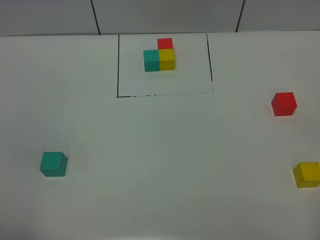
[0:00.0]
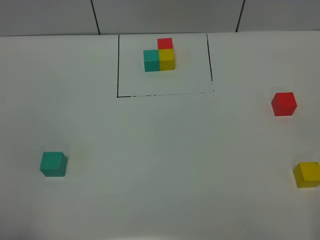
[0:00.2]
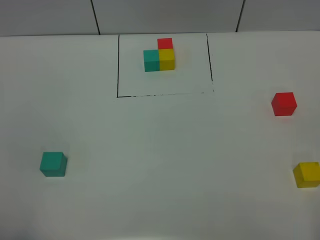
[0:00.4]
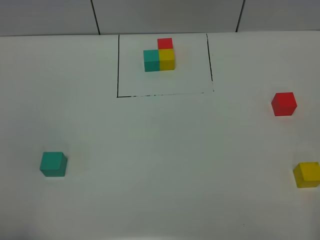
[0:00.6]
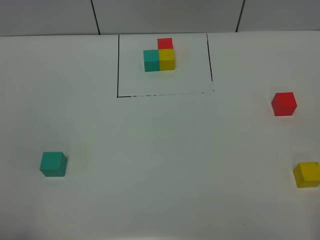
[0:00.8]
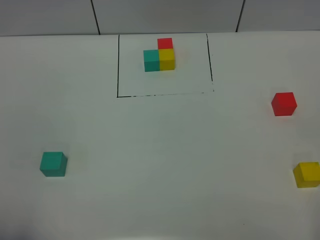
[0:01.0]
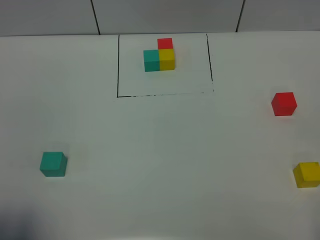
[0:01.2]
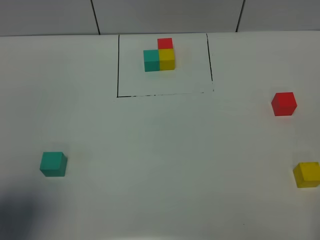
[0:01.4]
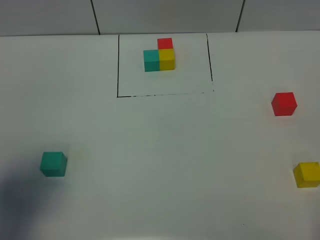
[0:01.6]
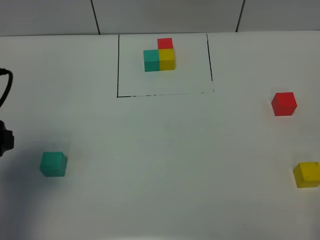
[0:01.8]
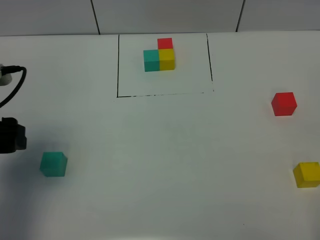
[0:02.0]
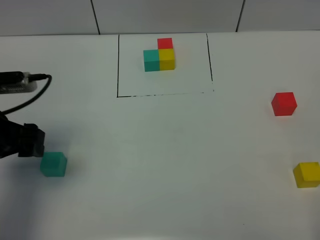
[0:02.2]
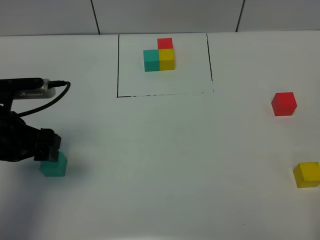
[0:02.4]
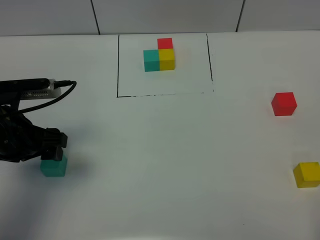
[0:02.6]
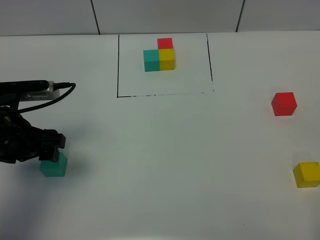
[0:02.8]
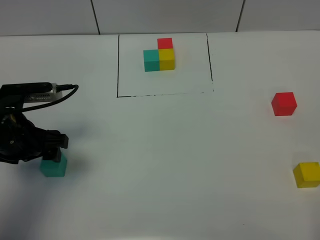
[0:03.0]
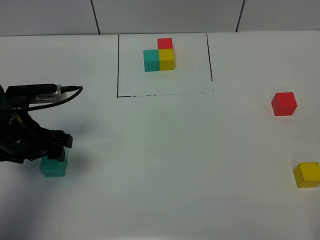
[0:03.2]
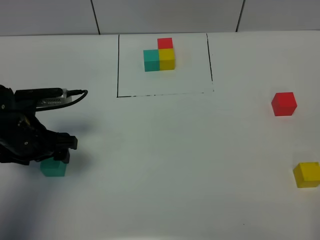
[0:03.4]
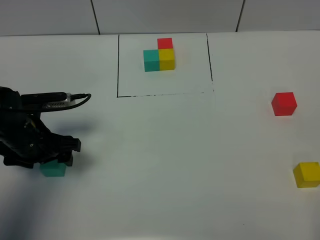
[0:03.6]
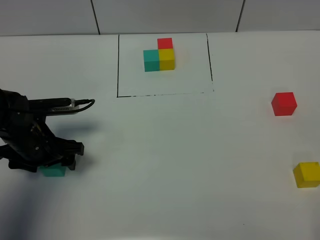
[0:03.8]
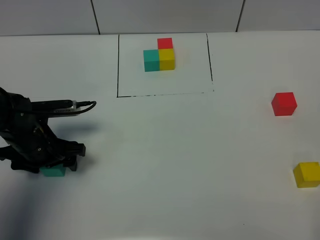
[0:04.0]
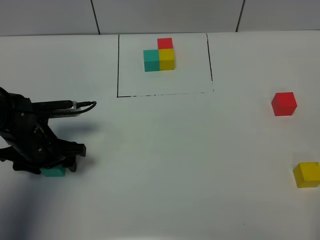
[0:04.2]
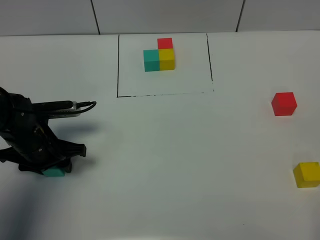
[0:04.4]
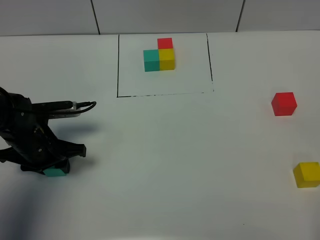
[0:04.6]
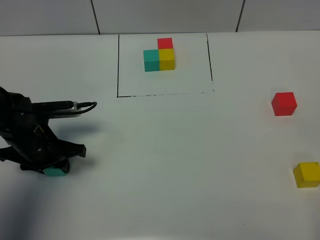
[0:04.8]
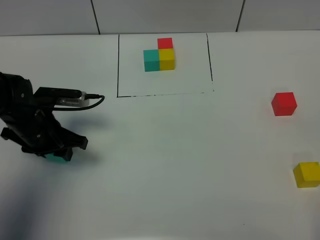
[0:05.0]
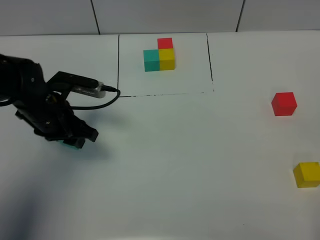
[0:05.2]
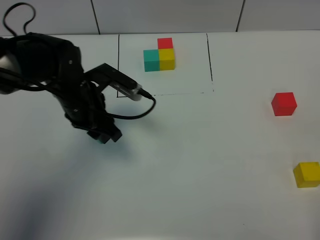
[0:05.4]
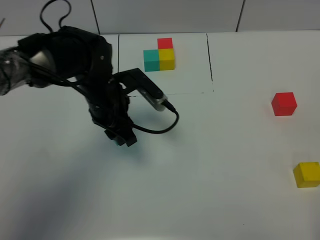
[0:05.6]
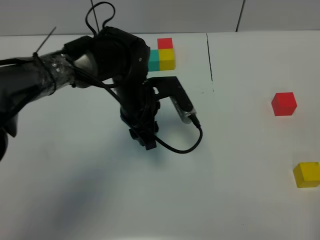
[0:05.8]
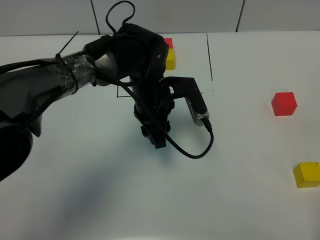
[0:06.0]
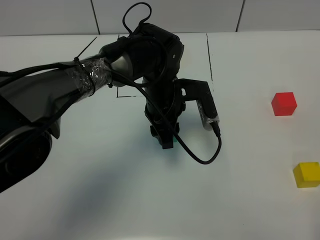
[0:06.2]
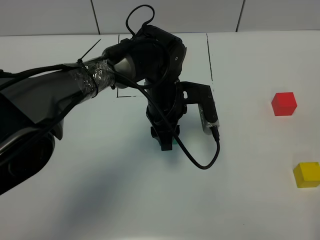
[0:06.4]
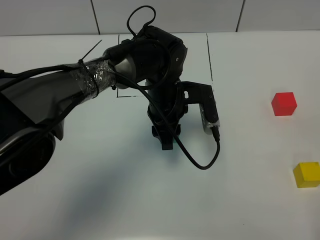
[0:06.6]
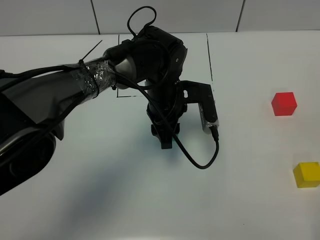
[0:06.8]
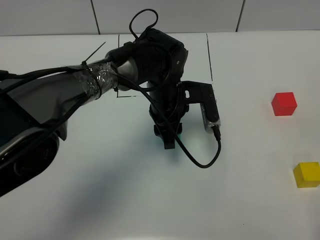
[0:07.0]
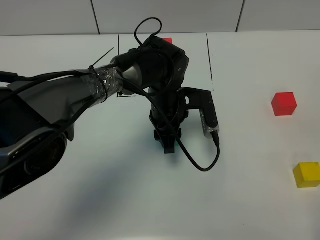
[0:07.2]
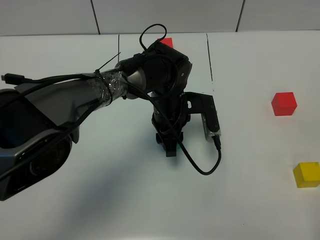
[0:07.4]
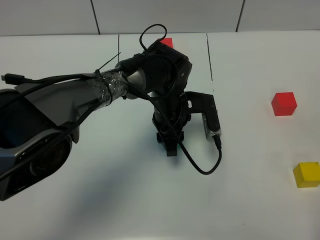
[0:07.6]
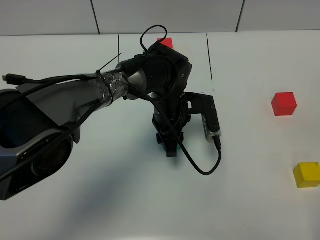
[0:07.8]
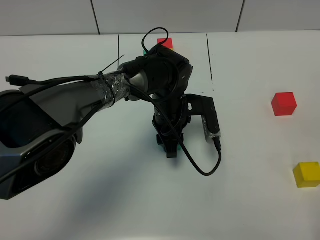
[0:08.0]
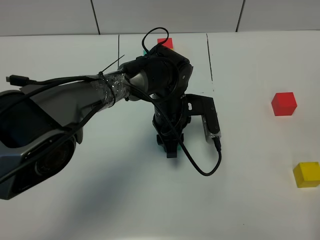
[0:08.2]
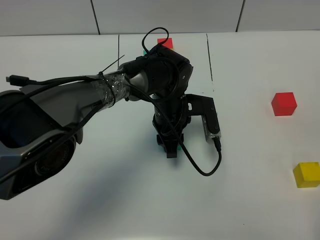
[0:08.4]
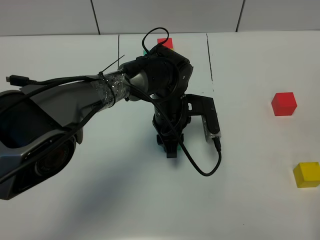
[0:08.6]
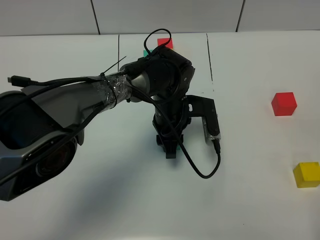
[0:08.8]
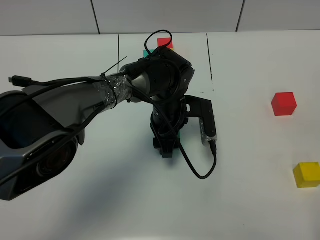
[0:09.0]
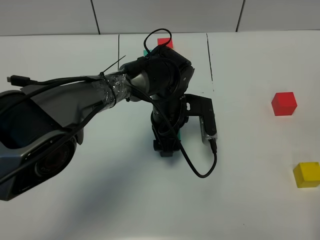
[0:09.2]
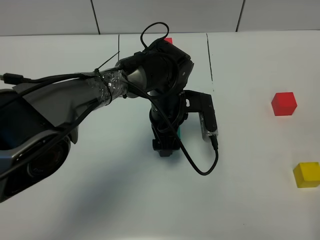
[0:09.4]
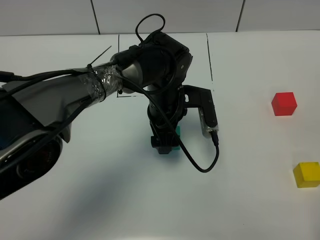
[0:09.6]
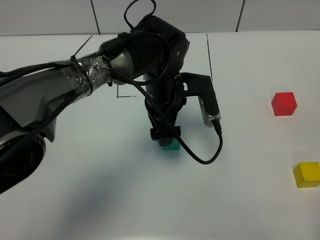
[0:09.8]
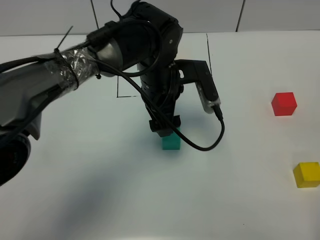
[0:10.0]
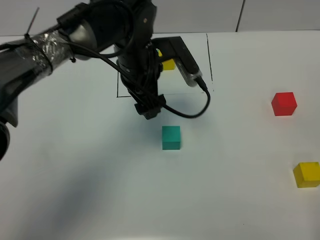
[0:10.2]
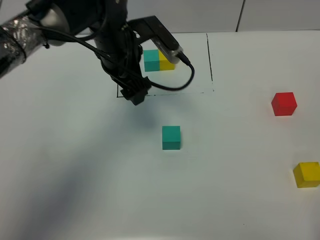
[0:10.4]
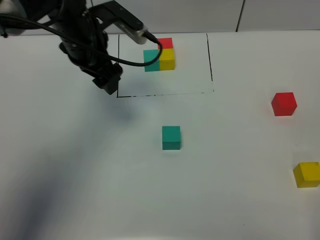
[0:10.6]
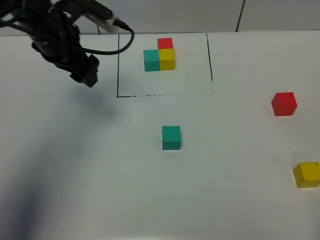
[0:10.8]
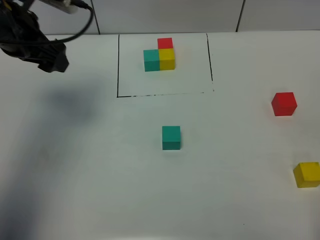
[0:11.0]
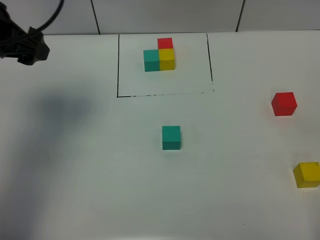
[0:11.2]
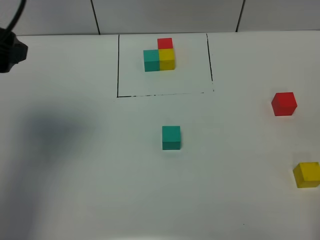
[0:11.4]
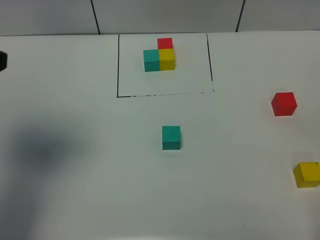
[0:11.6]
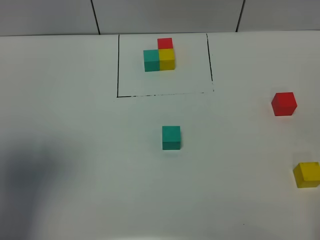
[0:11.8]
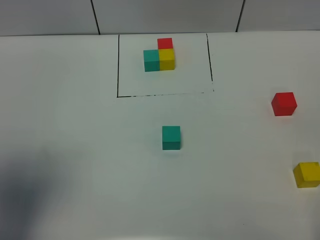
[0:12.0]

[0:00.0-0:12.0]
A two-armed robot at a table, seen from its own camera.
Task of the whole recording: According to the building block template in front, assemble the scattered blocks together.
Step, 0:00.0 to 0:09.4: Put the green build block in the center of the table.
0:00.0 to 0:01.6: The left gripper heads forward, covering some 15 cm.
0:01.6 to 0:03.0: The left gripper goes about 15 cm forward, downward and to the right.
0:03.0 to 0:04.4: The left gripper is displaced downward by roughly 5 cm, and closes its fingers.
0:04.4 to 0:06.0: The left gripper shifts some 20 cm to the right.
0:06.0 to 0:07.6: The left gripper shifts by about 5 cm.
0:07.6 to 0:09.0: The left gripper opens up.
0:09.0 to 0:10.4: The left gripper shifts approximately 15 cm upward and to the left, and opens up.
0:10.4 to 0:12.0: The left gripper moves backward, to the left and upward, some 35 cm.

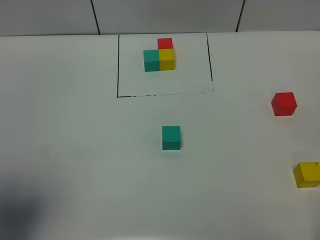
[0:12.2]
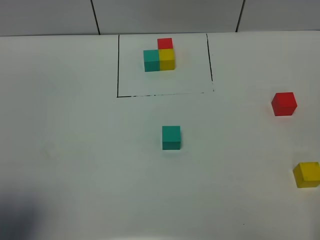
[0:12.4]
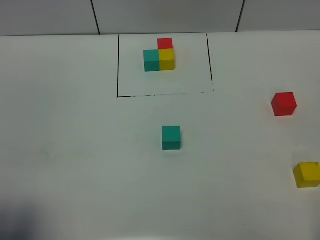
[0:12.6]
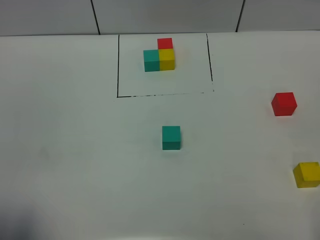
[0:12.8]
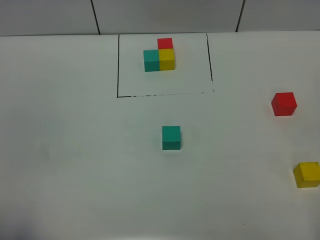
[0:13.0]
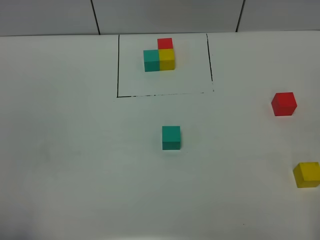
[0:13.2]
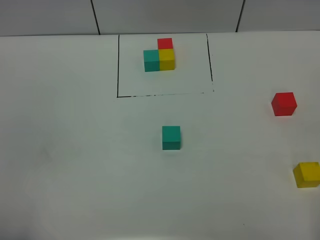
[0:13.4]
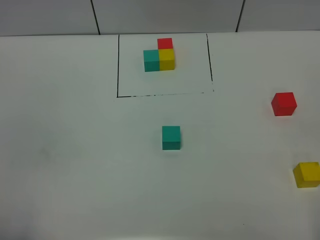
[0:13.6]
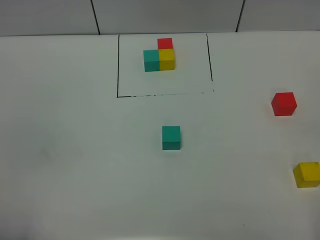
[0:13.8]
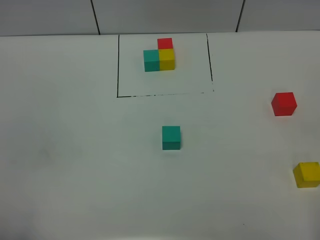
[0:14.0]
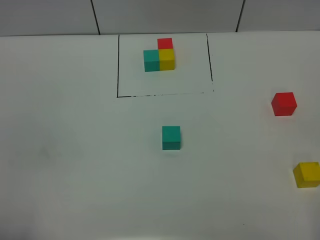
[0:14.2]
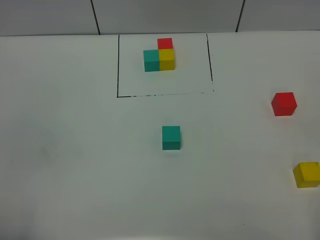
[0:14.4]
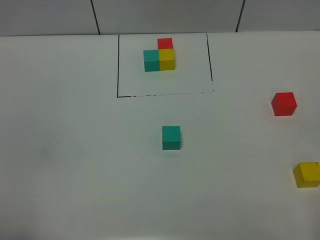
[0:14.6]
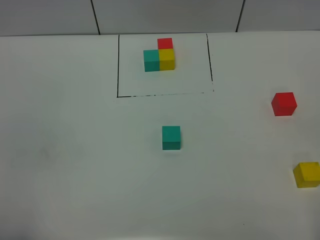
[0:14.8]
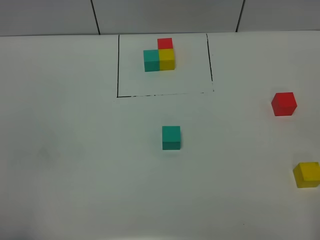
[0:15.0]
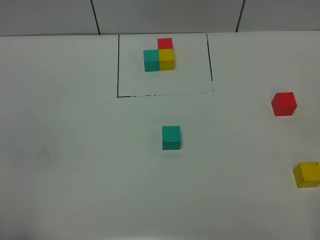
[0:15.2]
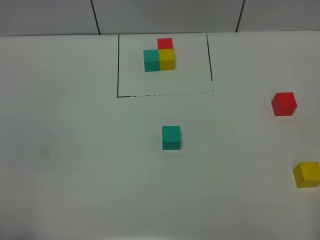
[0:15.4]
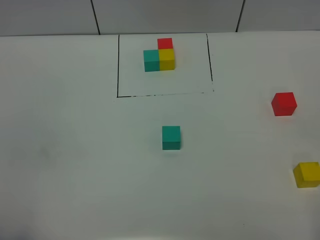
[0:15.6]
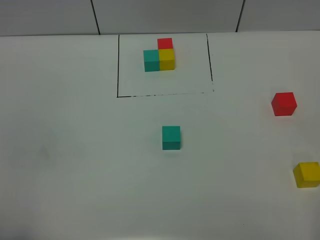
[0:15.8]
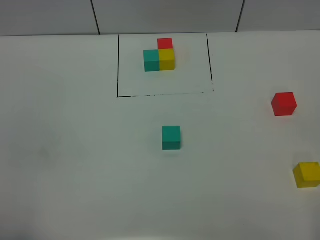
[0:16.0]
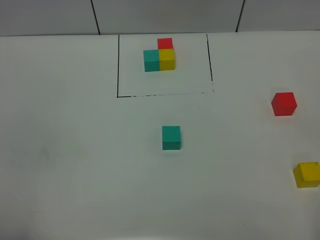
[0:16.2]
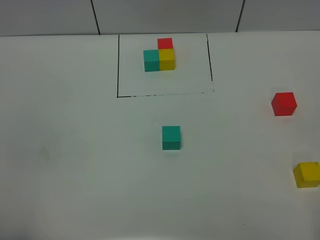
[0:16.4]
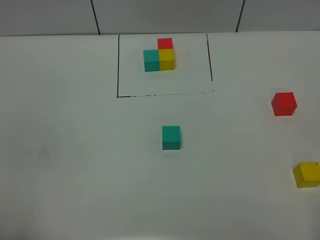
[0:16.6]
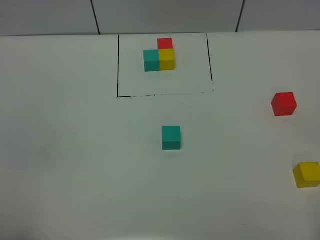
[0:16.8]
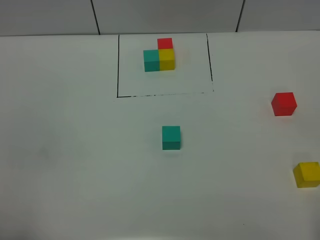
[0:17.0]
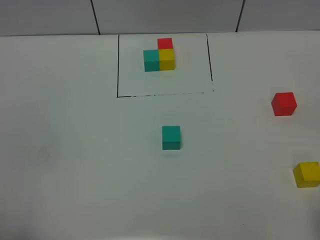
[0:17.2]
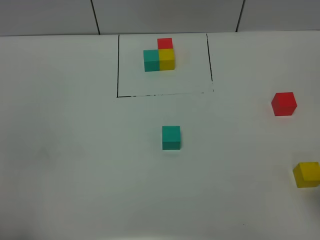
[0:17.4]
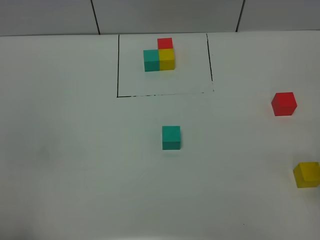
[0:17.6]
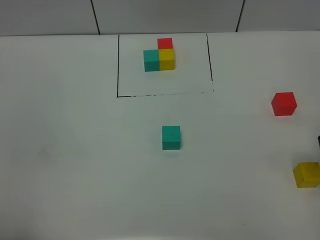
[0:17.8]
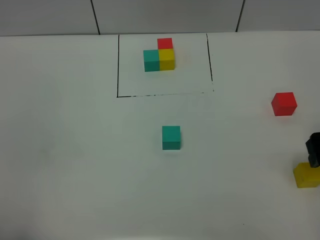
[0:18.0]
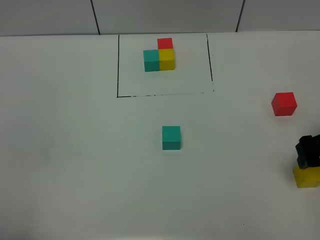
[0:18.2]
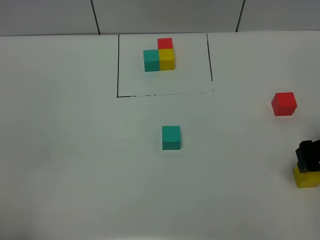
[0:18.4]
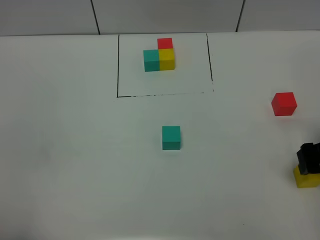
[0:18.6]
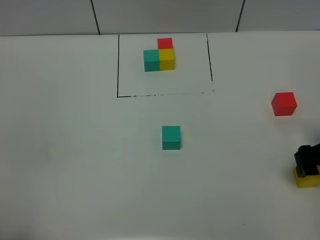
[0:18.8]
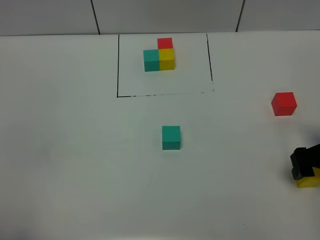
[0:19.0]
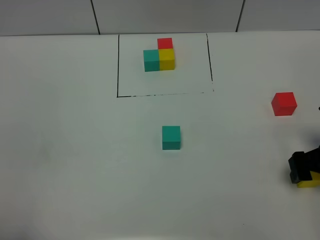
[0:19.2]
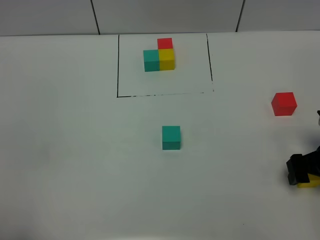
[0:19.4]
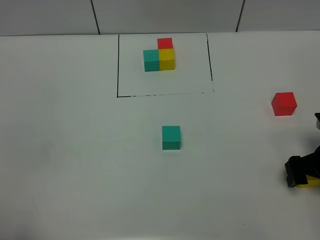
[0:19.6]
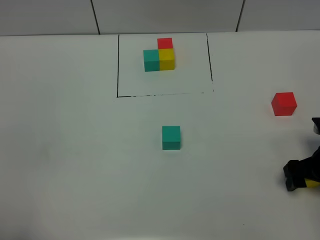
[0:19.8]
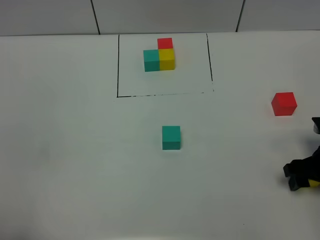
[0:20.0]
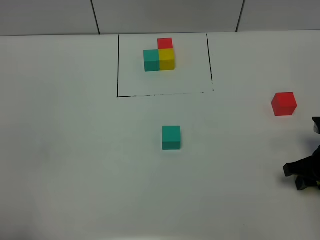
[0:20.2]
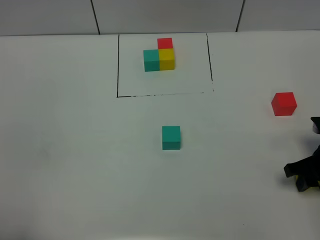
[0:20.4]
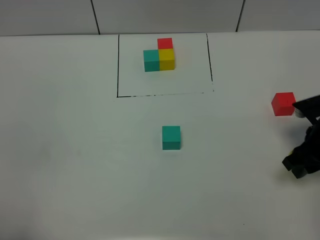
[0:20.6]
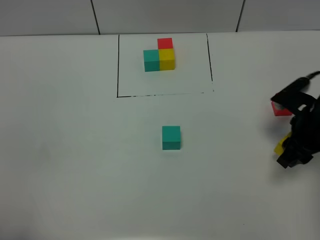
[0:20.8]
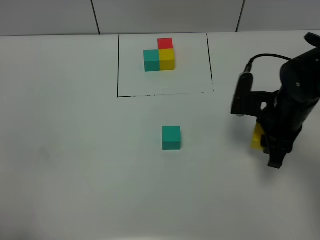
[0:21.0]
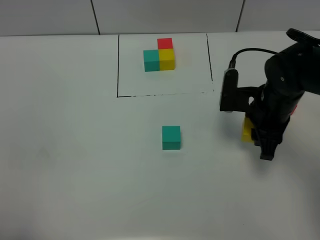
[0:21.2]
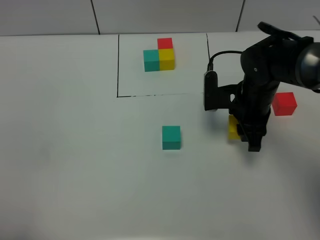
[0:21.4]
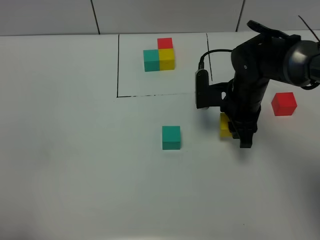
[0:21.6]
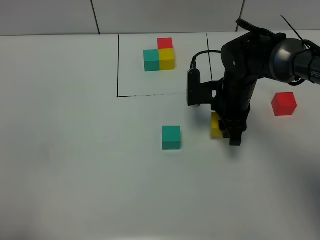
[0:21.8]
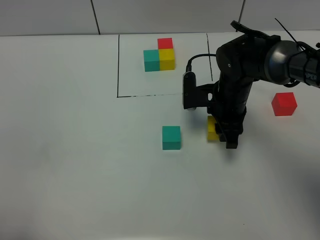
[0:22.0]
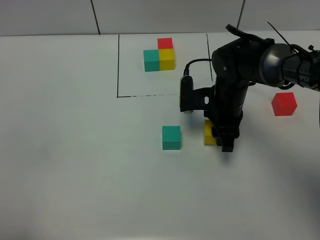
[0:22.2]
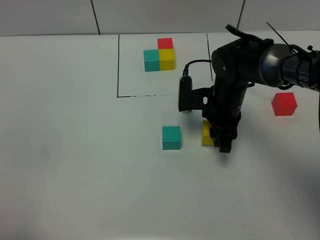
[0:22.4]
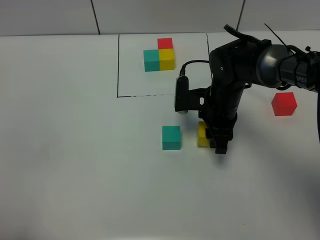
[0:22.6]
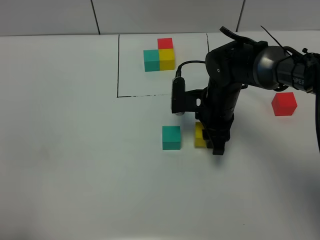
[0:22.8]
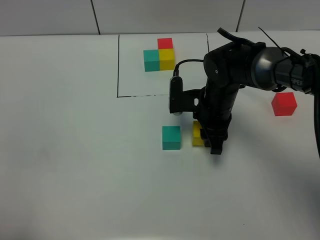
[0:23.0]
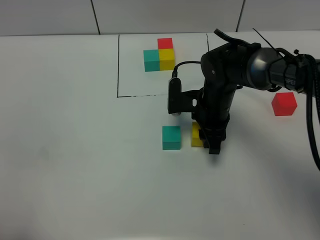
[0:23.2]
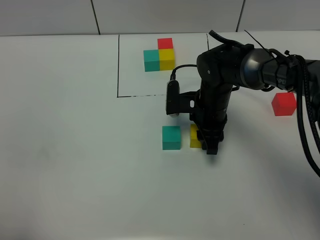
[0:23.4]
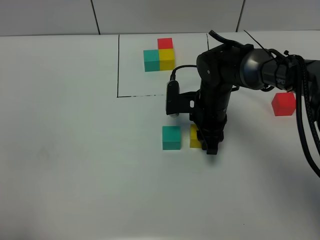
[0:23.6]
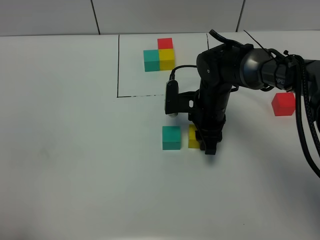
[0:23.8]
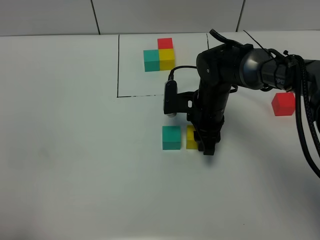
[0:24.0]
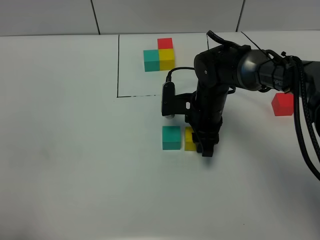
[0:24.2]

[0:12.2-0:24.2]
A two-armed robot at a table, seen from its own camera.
Task of the whole recording: According to the building block template in front, assemble the scattered blocks together.
0:12.2 to 0:13.8: The left gripper heads backward and downward, covering about 10 cm.
0:13.8 to 0:16.6: Both grippers stay put.
0:16.6 to 0:18.2: The right gripper moves forward, about 25 cm.
0:18.2 to 0:19.8: The right gripper heads downward, covering roughly 10 cm.
0:19.8 to 0:21.2: The right gripper moves to the left, forward and upward, roughly 15 cm, and closes.
0:21.2 to 0:22.6: The right gripper heads to the left, covering some 5 cm.
0:22.6 to 0:24.2: There are only small adjustments of the grippers.
